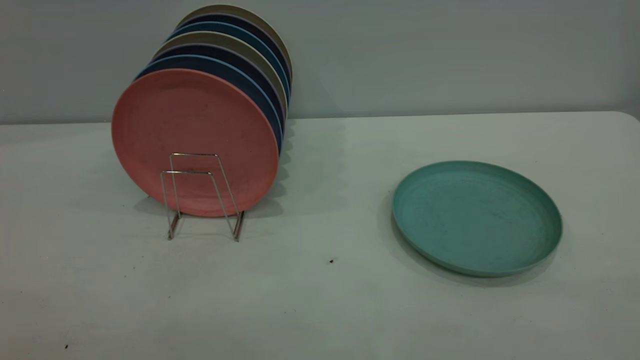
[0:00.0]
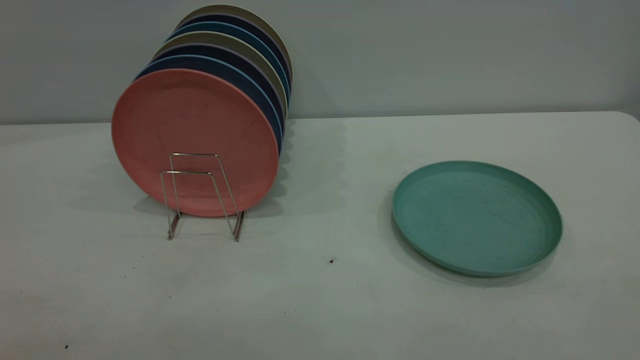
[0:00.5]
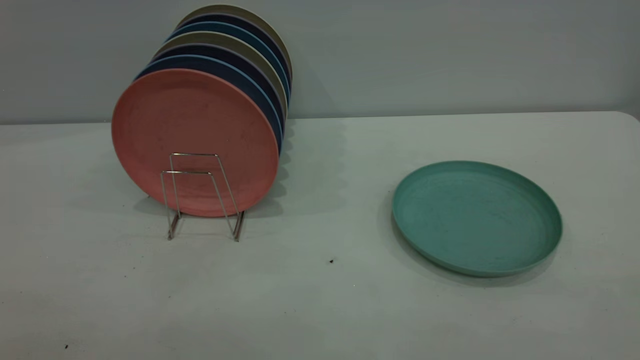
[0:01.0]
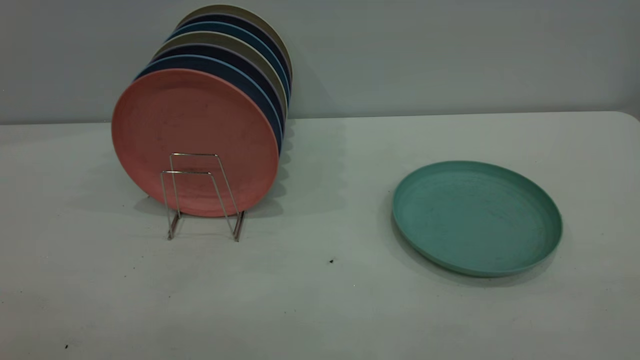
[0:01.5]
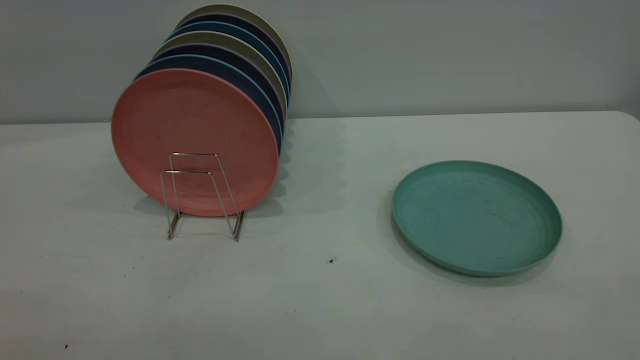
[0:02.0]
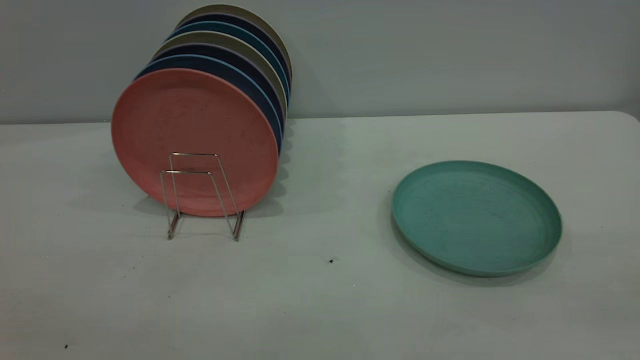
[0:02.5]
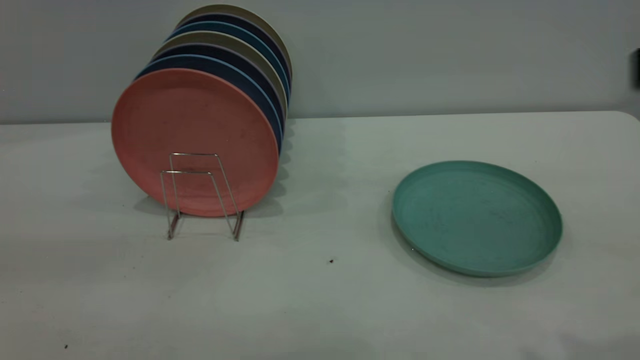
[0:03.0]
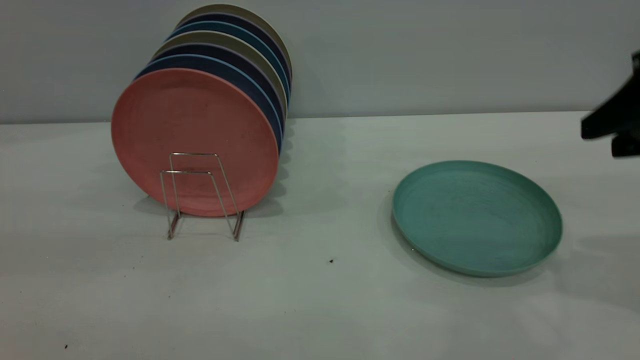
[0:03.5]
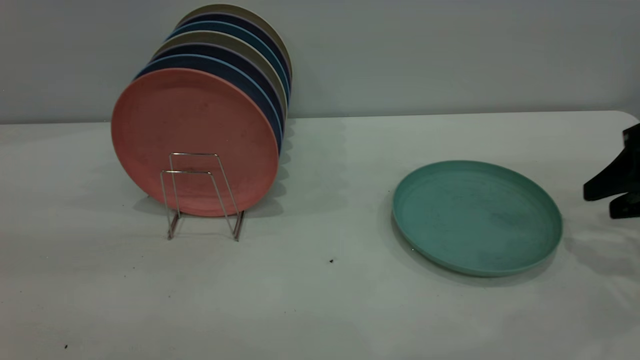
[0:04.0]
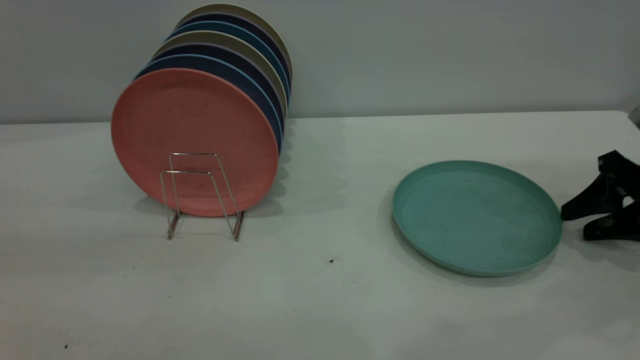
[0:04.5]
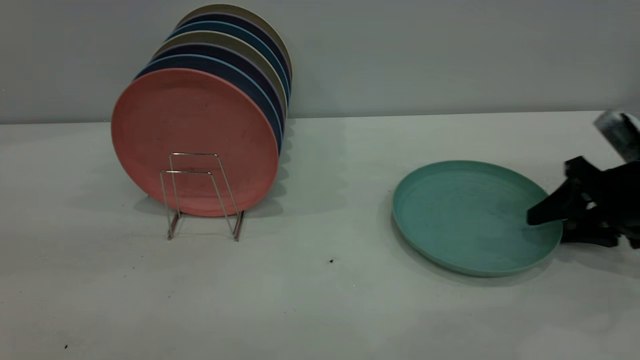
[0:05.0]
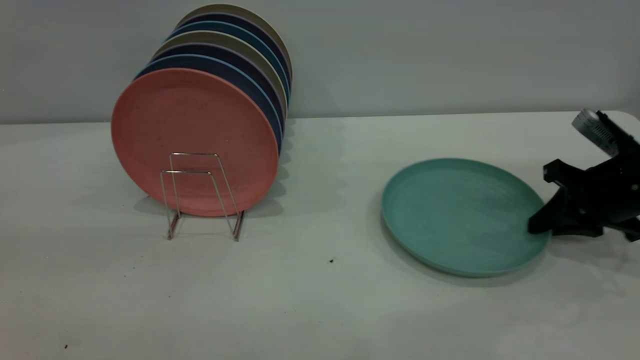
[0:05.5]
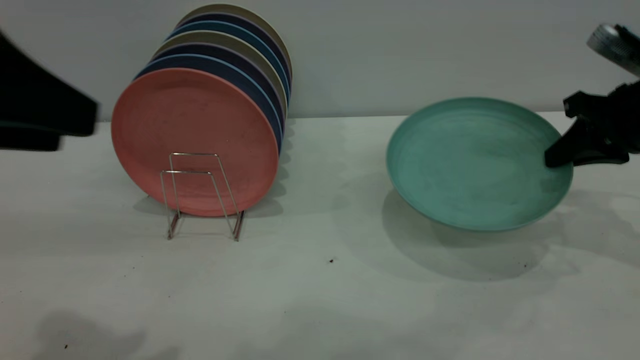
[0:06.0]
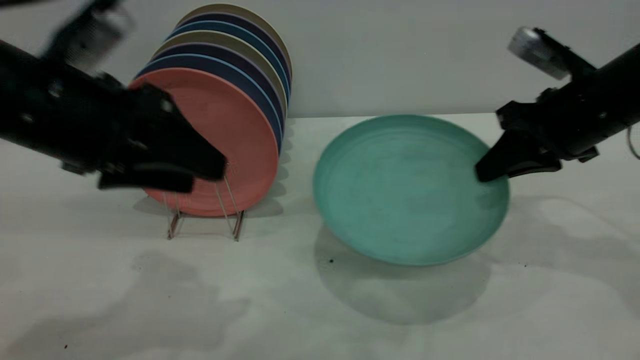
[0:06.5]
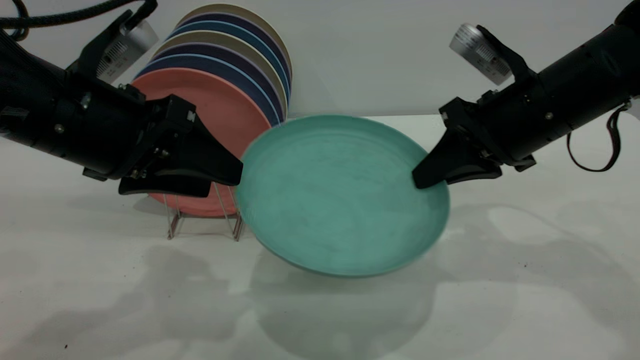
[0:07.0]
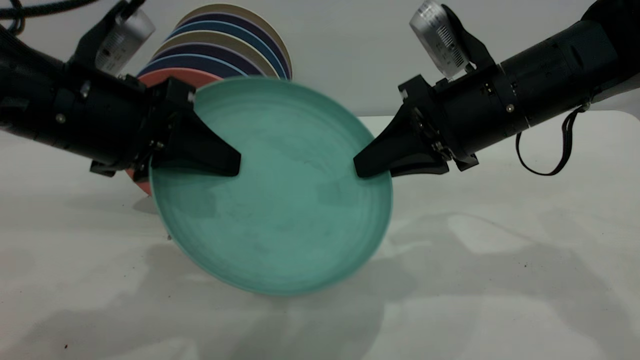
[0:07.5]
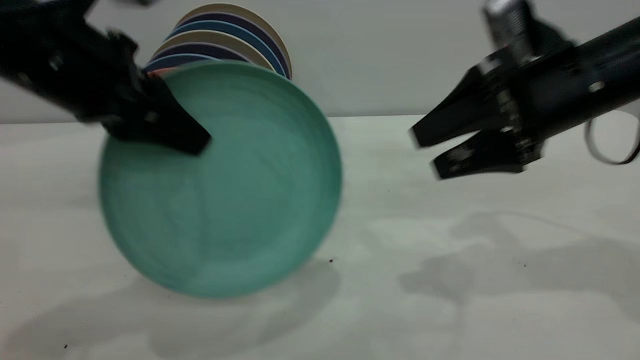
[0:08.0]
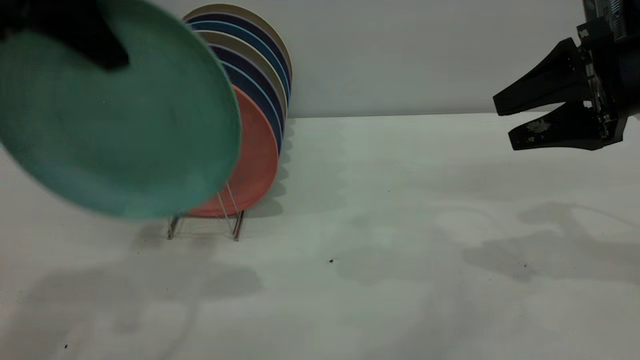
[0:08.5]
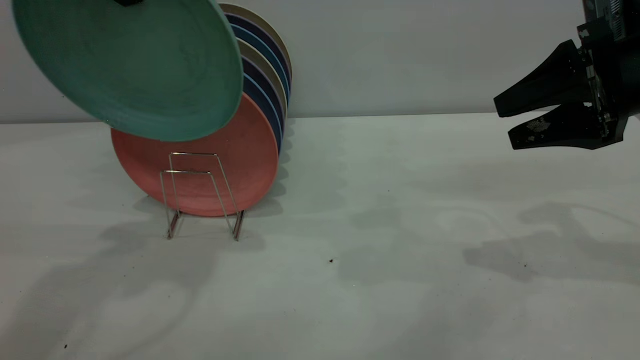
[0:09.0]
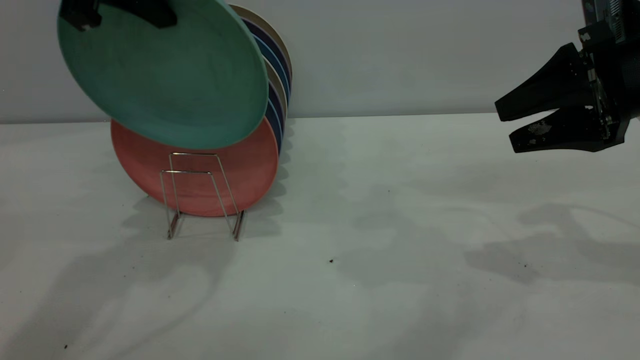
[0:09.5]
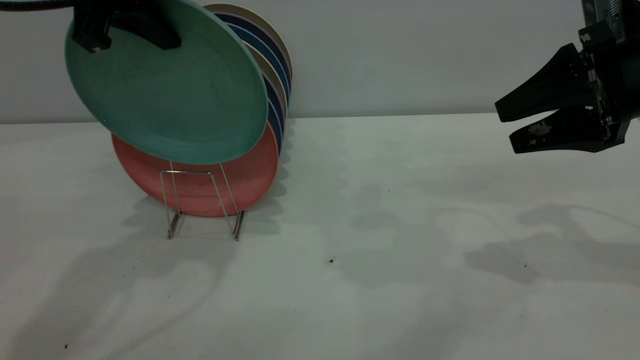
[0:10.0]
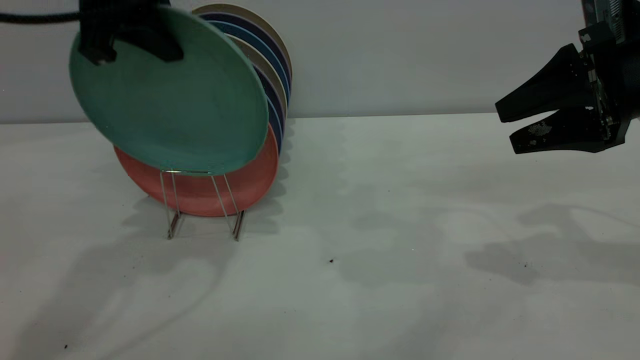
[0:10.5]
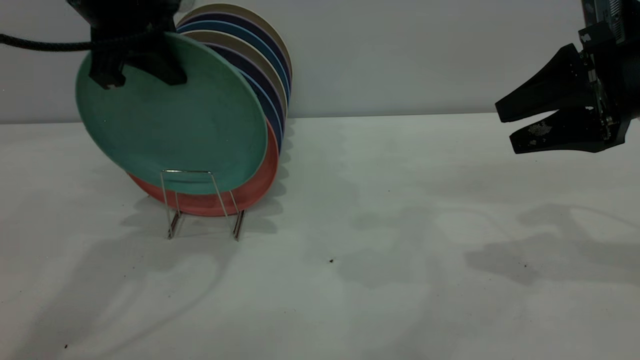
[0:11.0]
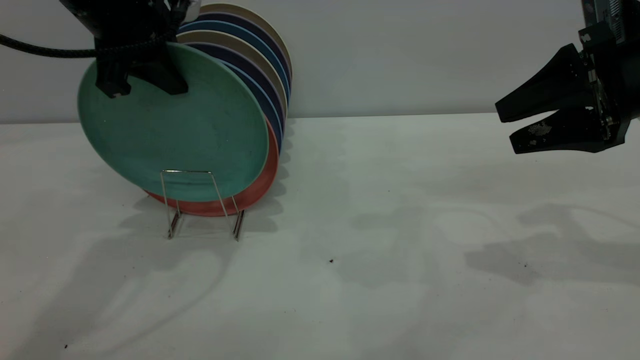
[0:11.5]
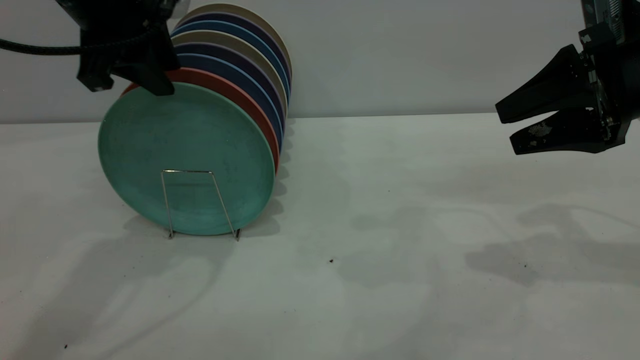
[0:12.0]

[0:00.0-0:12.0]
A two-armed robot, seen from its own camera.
Task of the whole recording: the right gripper grasp the green plate, the right gripper pass the green plate to the left gripper, and the left gripper place the green plate on the plate rack.
Step, 0:00.0 to 0:05.5: Pick up the plate with the right gripper.
Step, 0:06.0 to 0:07.5: Pass the plate from the right gripper to the left gripper.
0:00.0 to 0:02.0: The two grippers keep their place.
0:02.0 to 0:04.0: The right gripper heads forward and downward, covering about 40 cm.
0:04.0 to 0:06.0: The right gripper shifts by some 5 cm, and closes up. Meanwhile the left gripper heads forward and downward, covering some 10 cm.
0:06.0 to 0:08.0: The right gripper shifts some 10 cm to the left, and opens, while the left gripper shifts some 10 cm forward, and closes its fingers.
0:08.0 to 0:10.0: The right gripper moves to the right, approximately 5 cm; the left gripper travels forward and upward by some 10 cm.
0:10.0 to 0:12.0: The left gripper opens its fingers.

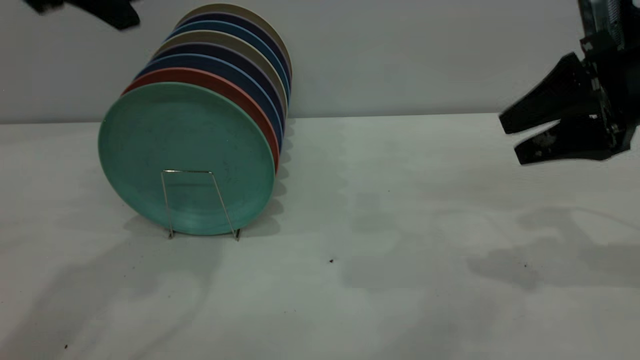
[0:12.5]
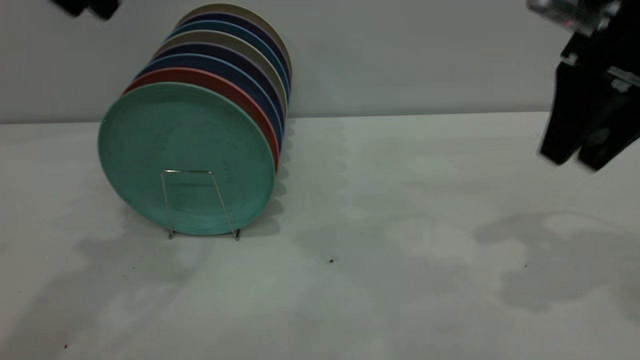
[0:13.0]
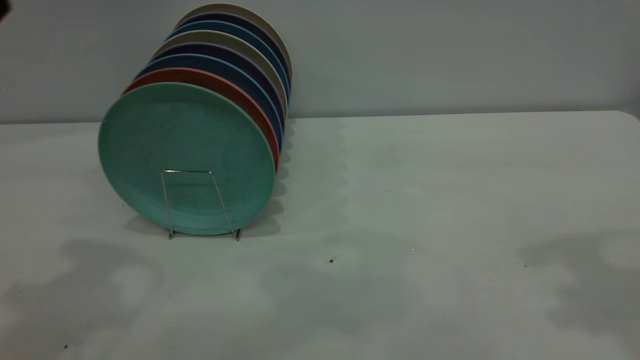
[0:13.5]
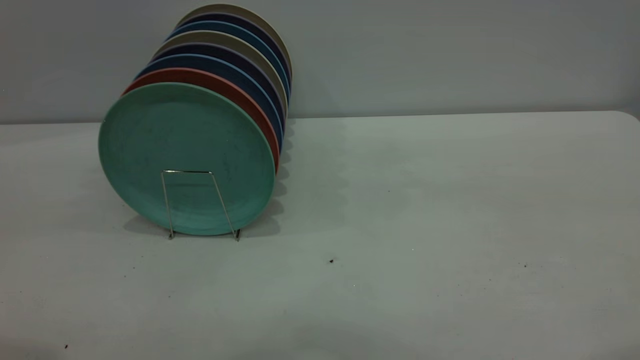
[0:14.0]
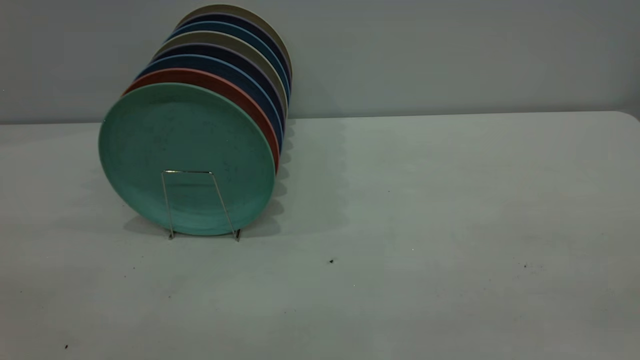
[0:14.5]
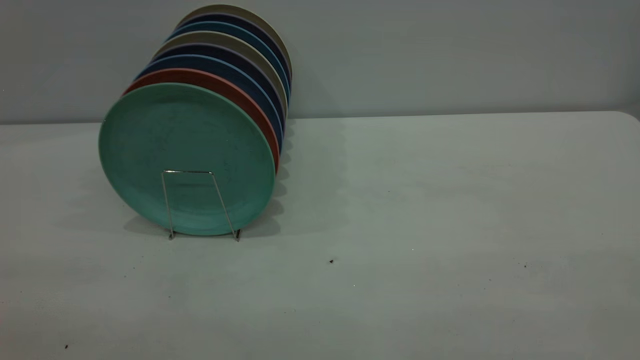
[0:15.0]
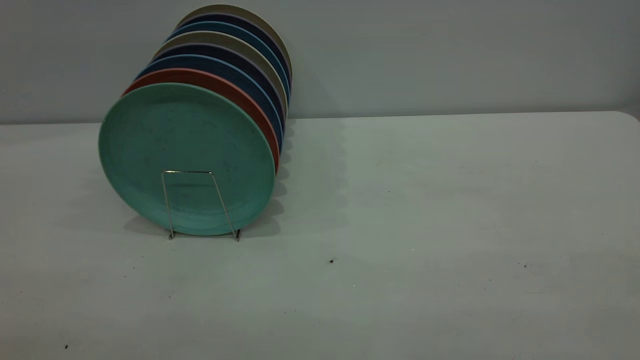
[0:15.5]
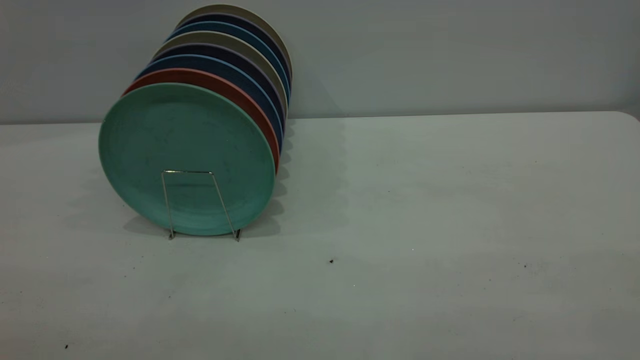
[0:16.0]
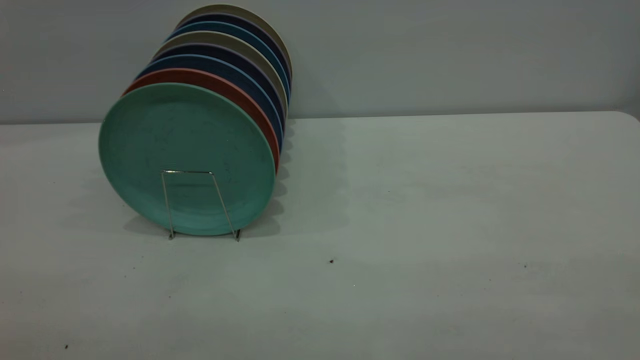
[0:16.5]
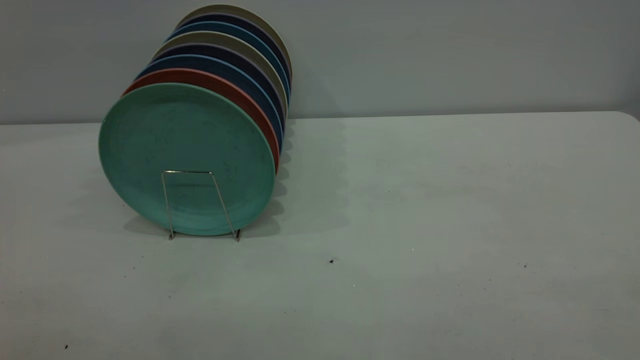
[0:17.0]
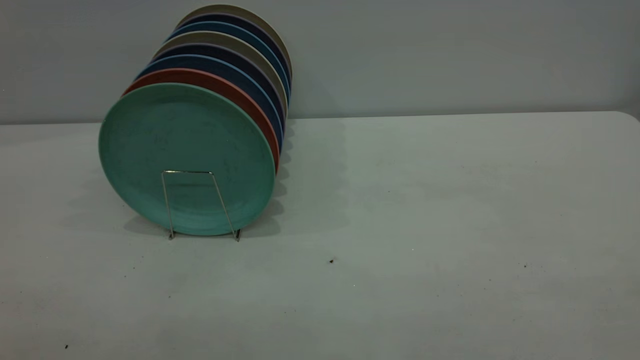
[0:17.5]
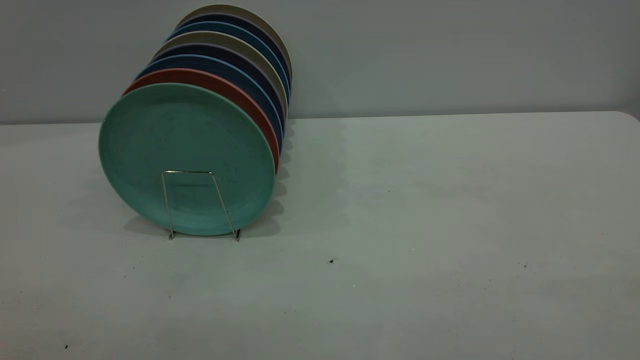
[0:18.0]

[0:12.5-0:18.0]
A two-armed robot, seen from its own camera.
Task of the whole recording: the right gripper grasp the green plate, the right gripper pass the green plate to the left gripper, and the left gripper place the green plate on the plate rack.
0:12.5 to 0:14.5: The left gripper shifts some 30 cm backward, and opens. The right gripper is displaced backward and upward by about 35 cm.
